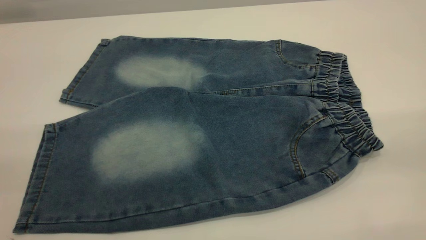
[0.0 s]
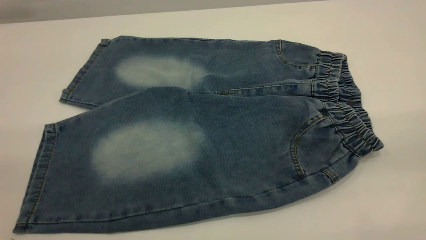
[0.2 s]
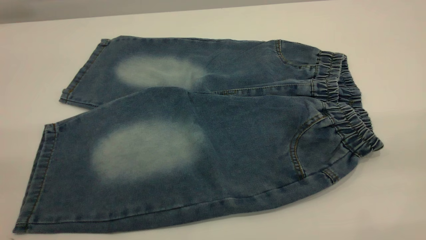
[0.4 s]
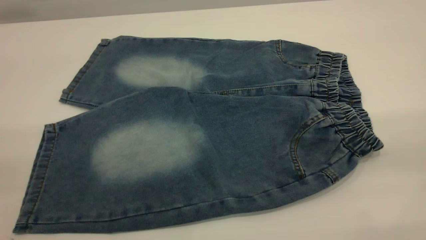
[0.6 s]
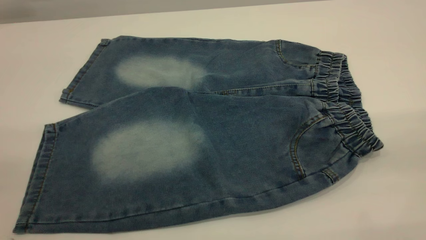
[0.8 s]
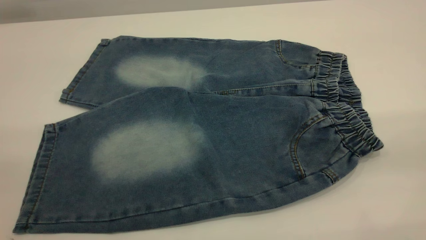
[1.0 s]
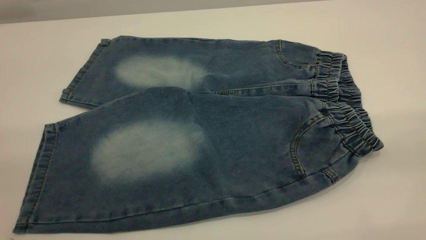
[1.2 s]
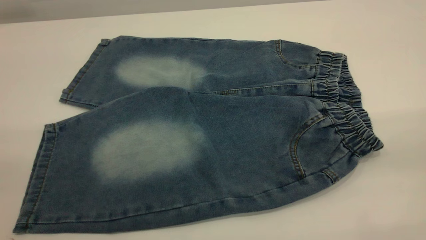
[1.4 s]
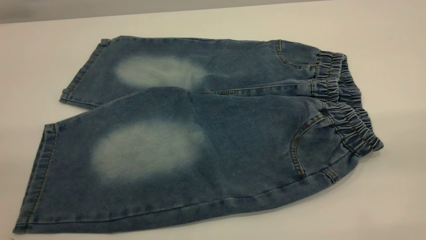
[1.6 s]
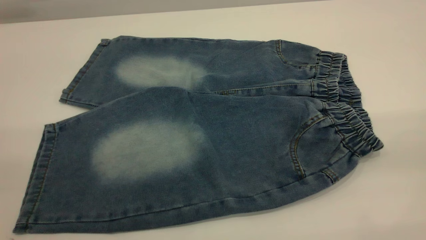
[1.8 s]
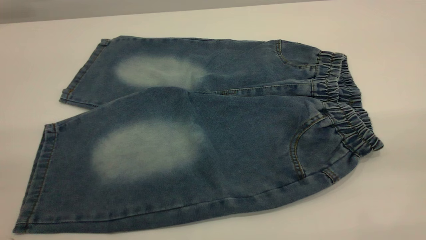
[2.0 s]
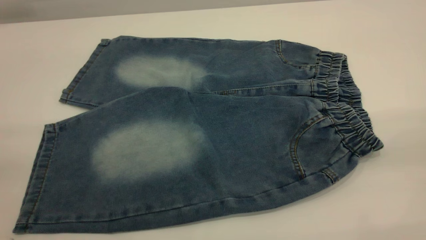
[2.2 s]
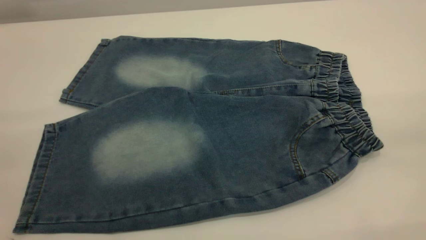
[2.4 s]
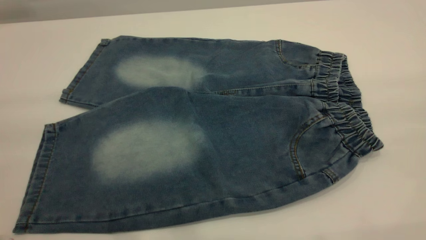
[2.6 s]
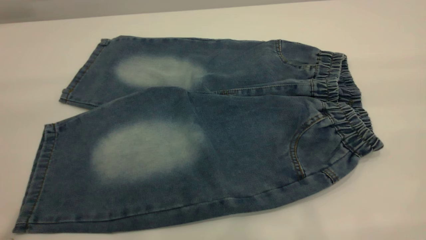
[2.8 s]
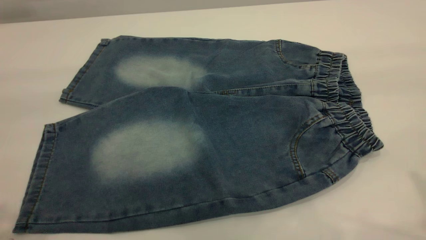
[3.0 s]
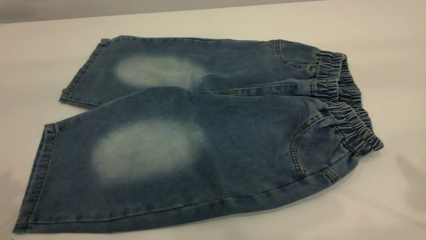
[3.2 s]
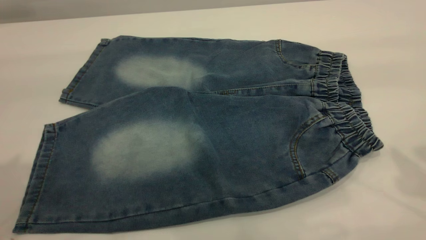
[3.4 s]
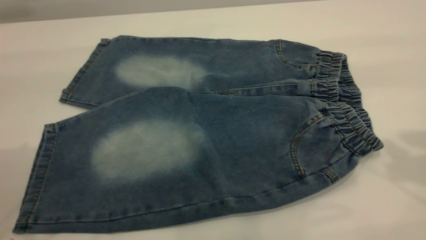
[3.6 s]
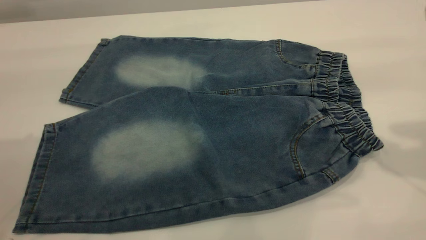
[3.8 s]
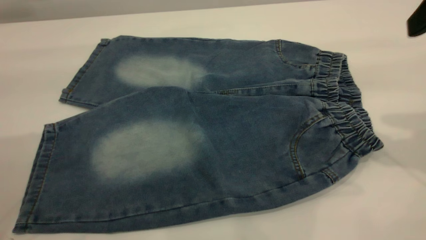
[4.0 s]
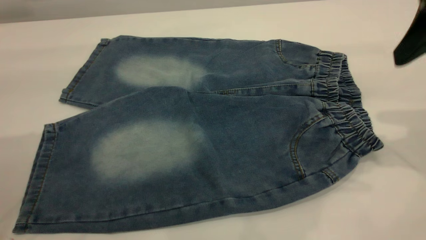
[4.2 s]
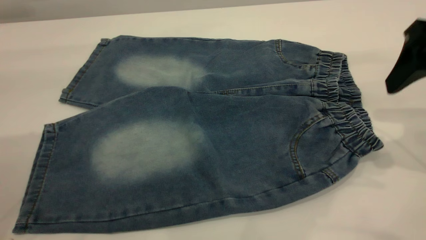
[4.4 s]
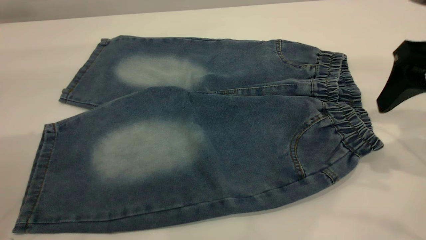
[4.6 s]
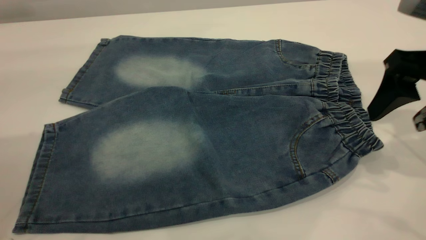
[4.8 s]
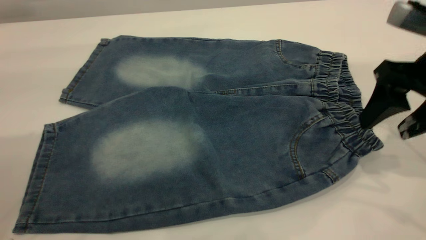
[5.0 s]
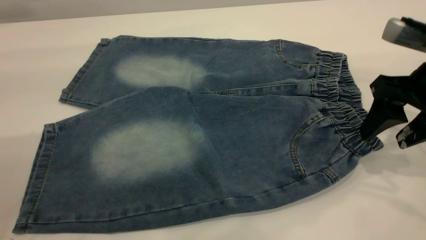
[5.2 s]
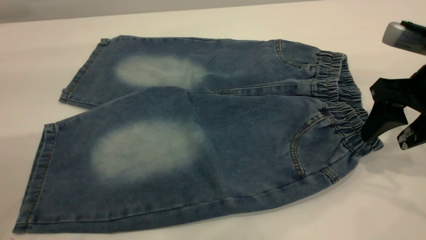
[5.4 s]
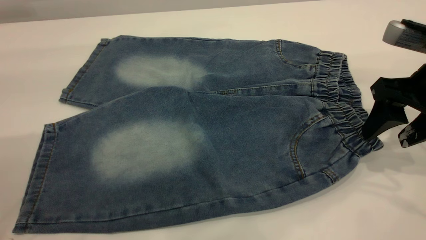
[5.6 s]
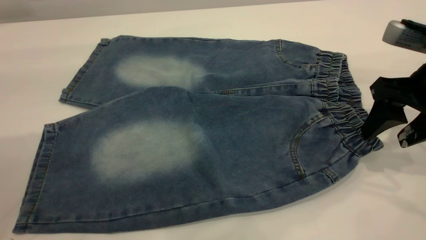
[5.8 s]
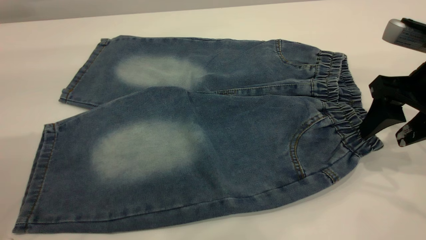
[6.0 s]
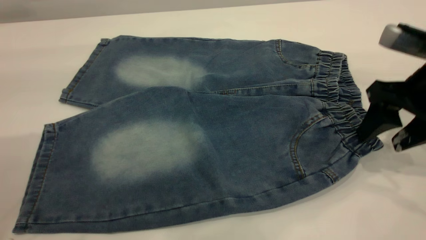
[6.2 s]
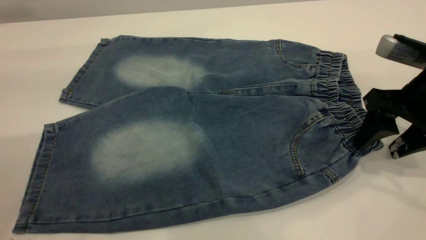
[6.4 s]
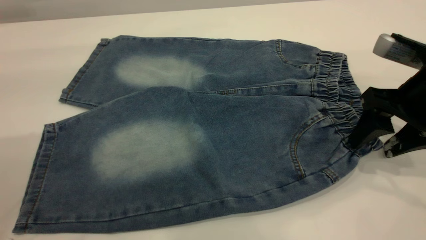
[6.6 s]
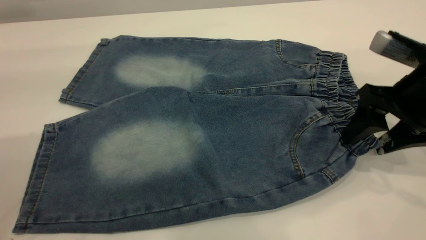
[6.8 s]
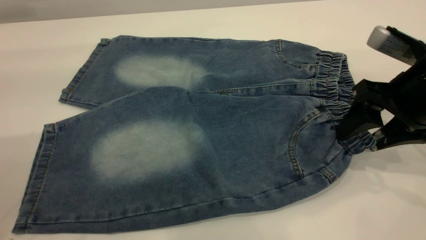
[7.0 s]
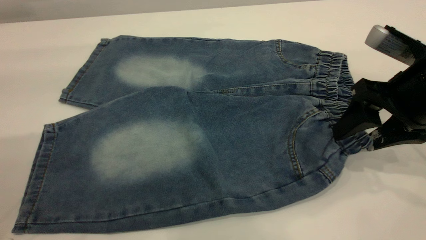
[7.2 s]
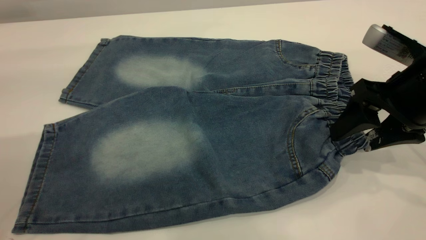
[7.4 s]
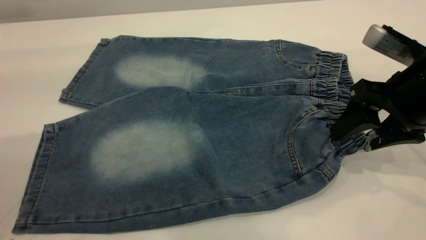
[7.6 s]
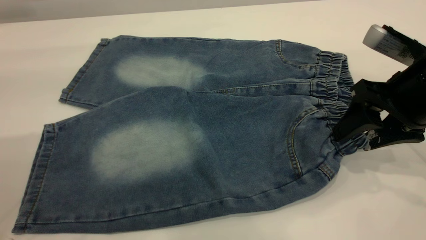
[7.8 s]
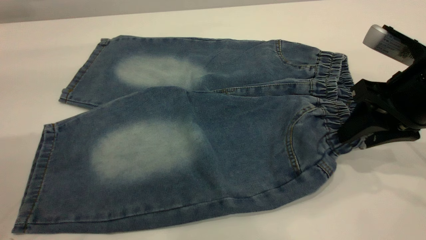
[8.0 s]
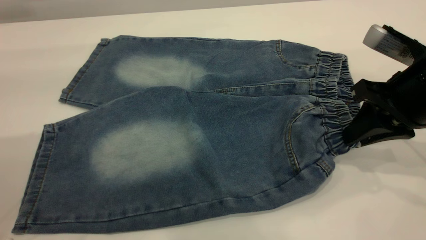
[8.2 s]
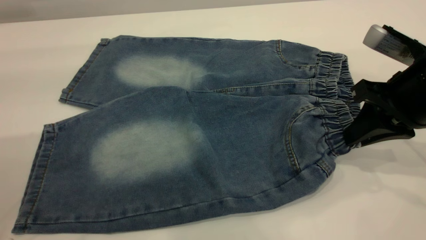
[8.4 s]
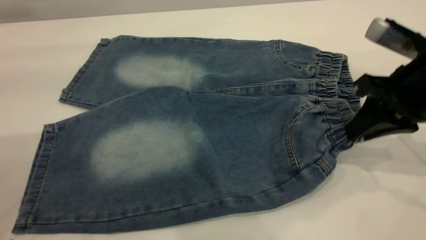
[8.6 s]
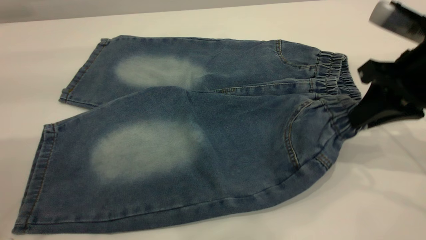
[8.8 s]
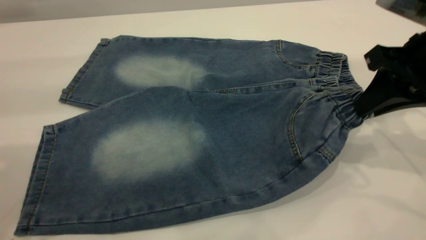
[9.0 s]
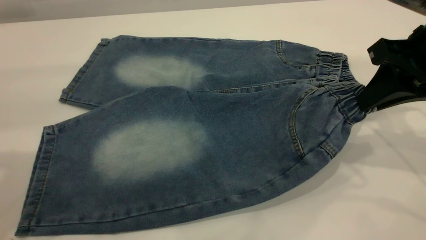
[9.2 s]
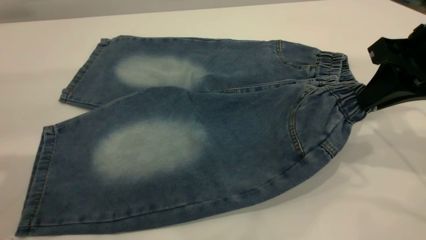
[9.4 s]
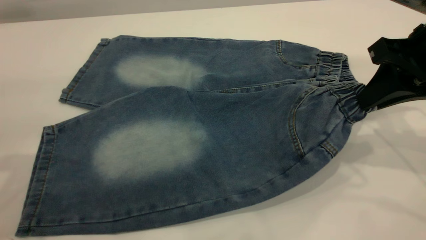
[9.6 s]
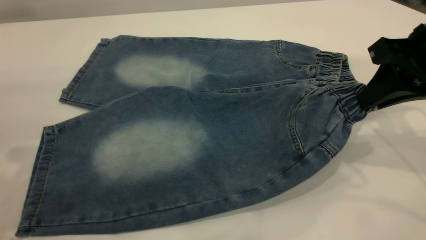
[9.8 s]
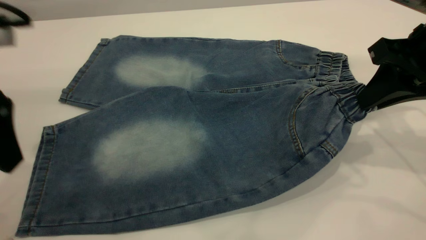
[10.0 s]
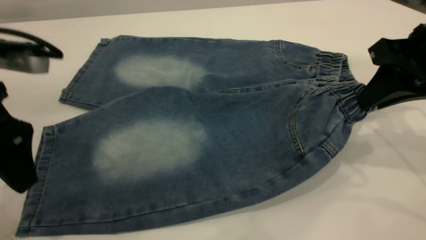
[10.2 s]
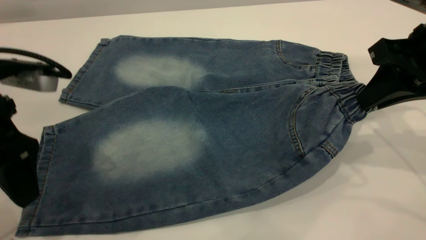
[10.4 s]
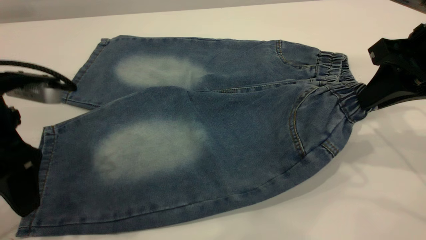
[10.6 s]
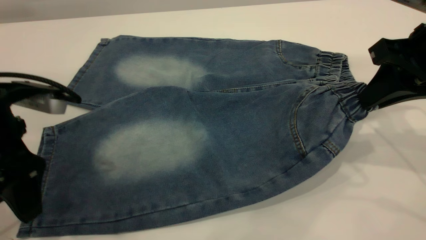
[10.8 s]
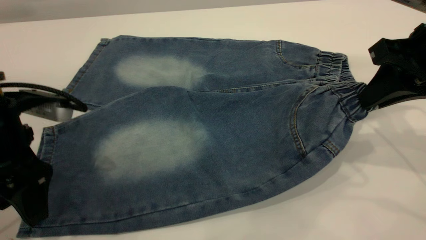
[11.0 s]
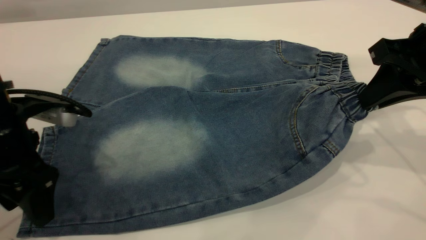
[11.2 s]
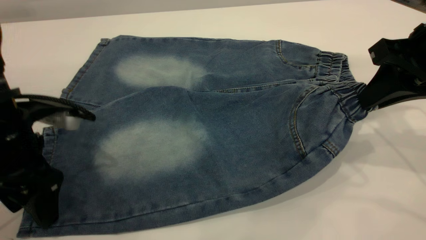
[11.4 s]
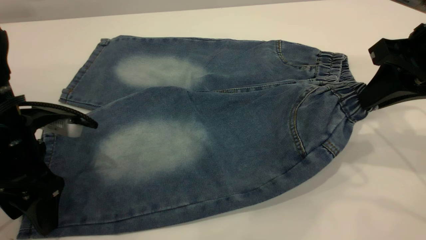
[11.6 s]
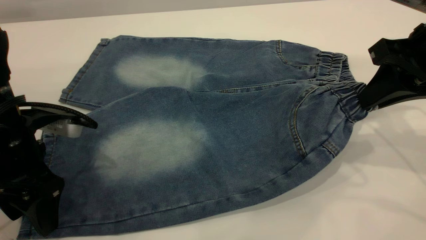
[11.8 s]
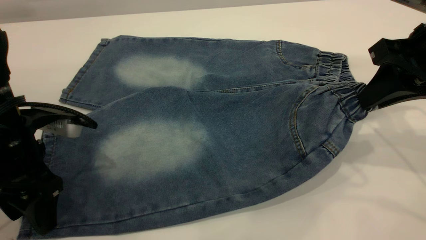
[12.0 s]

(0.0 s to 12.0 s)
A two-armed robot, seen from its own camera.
0.0 s - 1.6 s: Both grippers stay put.
3.0 s - 4.4 s: The right gripper goes about 20 cm downward and forward.
4.4 s - 6.0 s: The right gripper is displaced downward by roughly 5 cm.
6.0 s - 7.6 s: There are only small adjustments of the grippers.
7.6 s - 9.0 s: The right gripper closes.
9.0 s - 10.4 s: The left gripper travels downward by about 15 cm.
10.4 s - 12.0 s: The left gripper travels downward by roughly 5 cm.

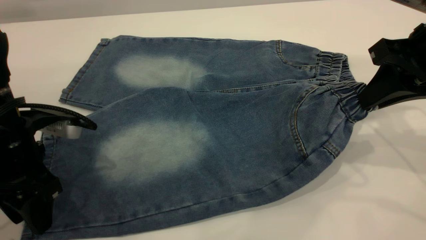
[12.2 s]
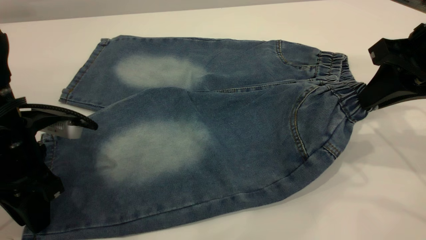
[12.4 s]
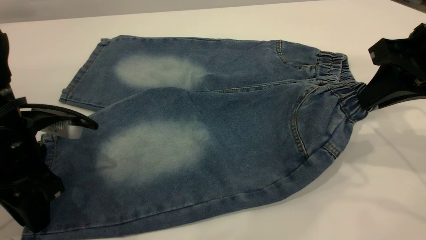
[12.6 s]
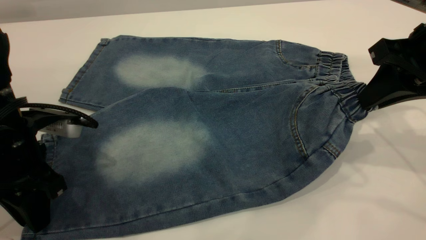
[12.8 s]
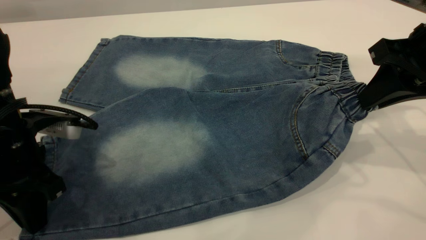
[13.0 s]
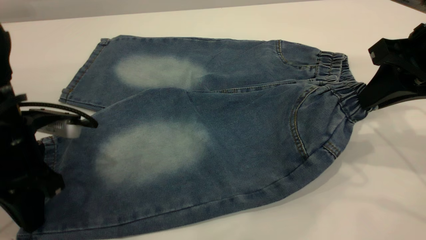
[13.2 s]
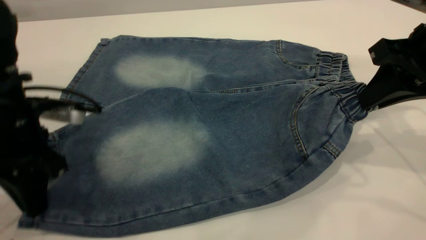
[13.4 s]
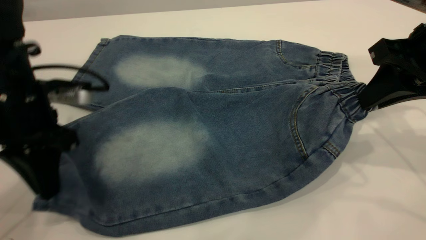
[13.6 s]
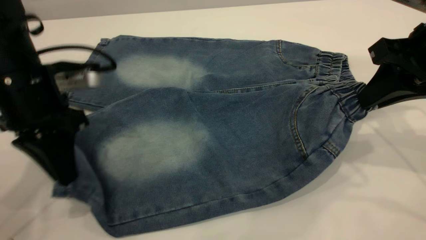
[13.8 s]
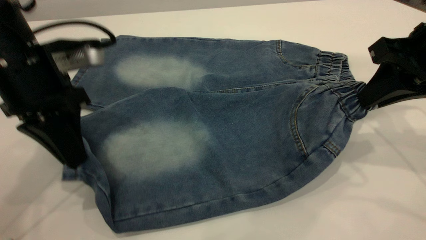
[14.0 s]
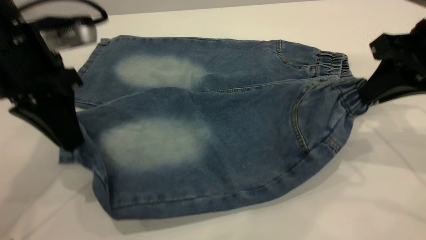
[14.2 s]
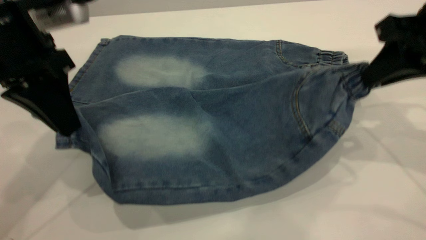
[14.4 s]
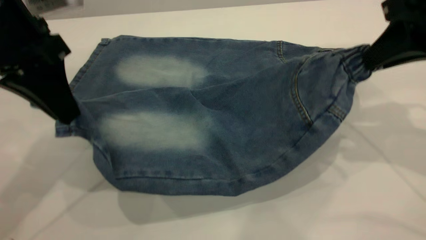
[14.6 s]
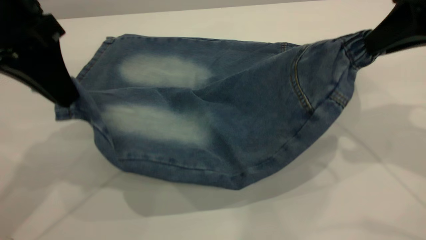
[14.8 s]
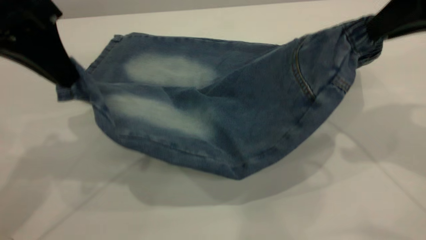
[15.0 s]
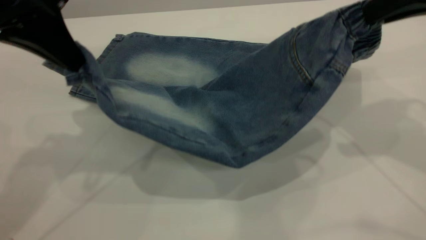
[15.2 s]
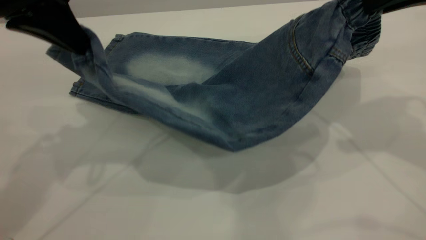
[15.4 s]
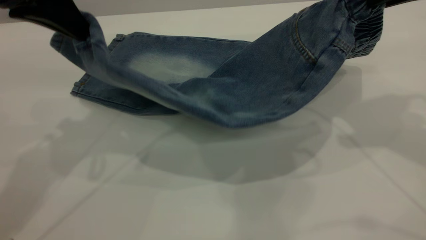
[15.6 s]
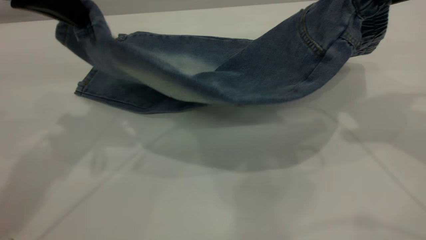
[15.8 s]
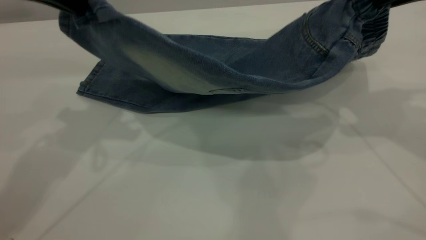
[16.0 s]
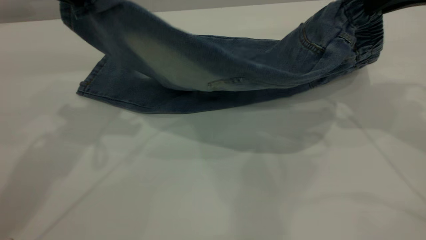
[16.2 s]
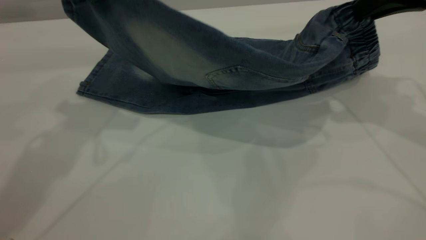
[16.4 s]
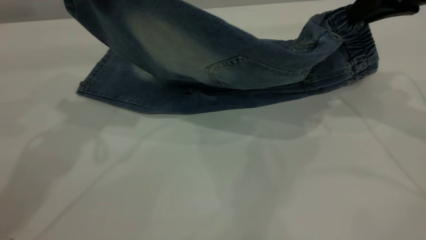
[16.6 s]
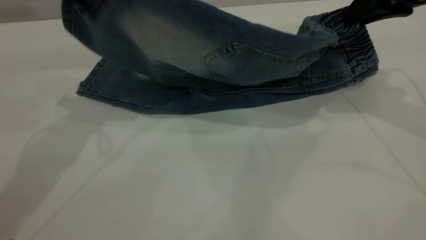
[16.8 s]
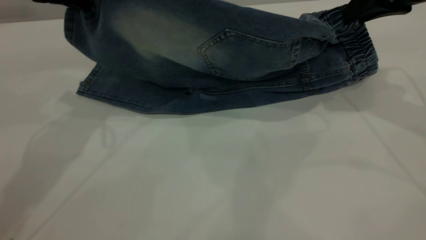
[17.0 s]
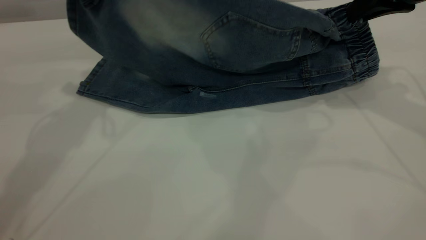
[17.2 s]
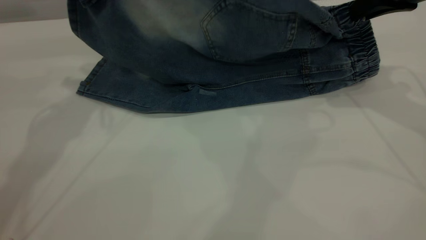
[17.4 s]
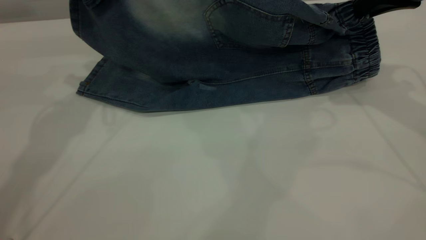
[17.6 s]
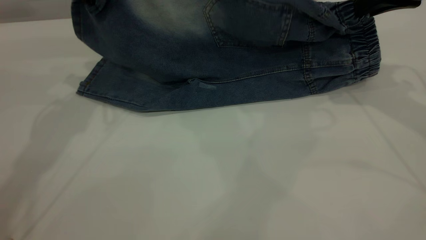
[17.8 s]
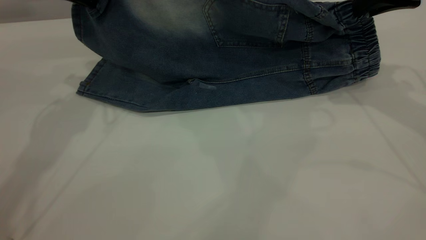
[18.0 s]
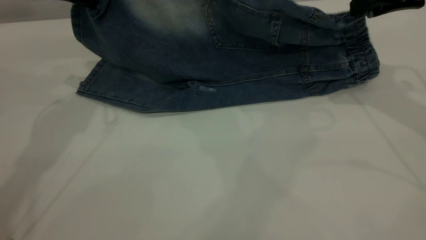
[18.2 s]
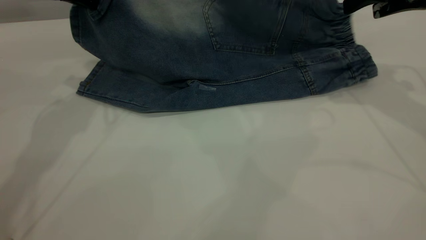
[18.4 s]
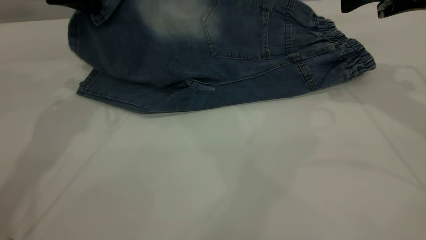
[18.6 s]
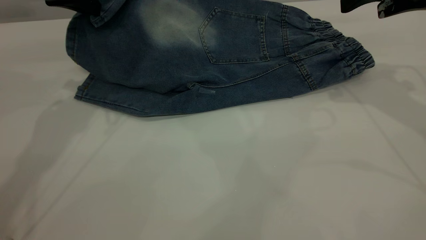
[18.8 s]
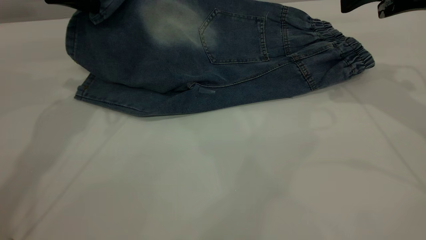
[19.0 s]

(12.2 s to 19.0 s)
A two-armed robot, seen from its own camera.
12.2 s - 13.6 s: The left gripper moves about 5 cm, and closes.
13.6 s - 15.0 s: The left gripper is displaced upward by some 15 cm; the right gripper shifts about 10 cm upward.
15.0 s - 16.2 s: The right gripper ends up approximately 5 cm from where it was.
16.2 s - 17.6 s: The right gripper ends up approximately 5 cm from where it was. The left gripper heads forward, covering roughly 10 cm.
17.6 s - 19.0 s: The right gripper opens up.
